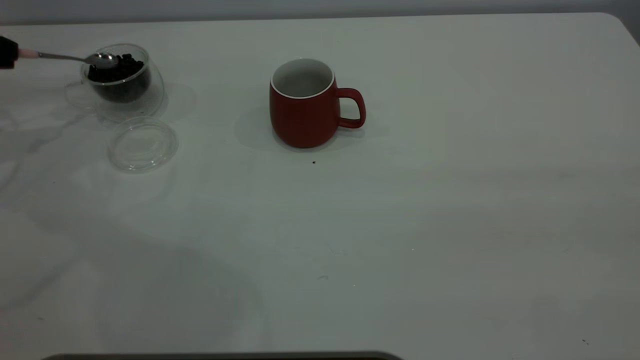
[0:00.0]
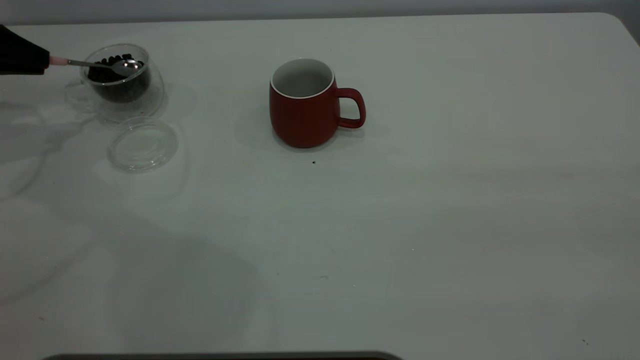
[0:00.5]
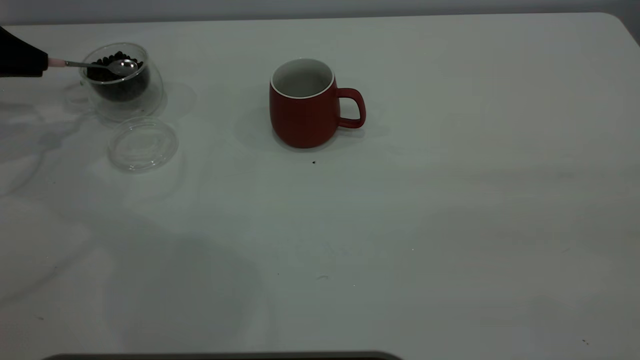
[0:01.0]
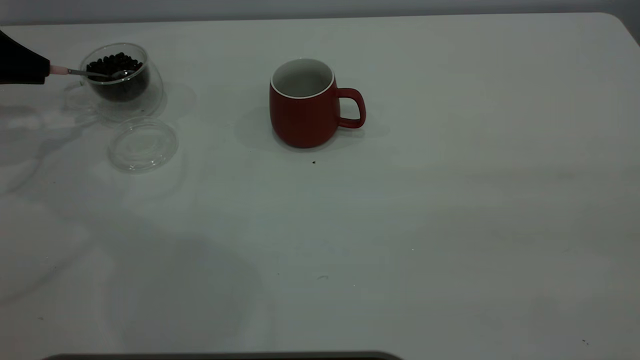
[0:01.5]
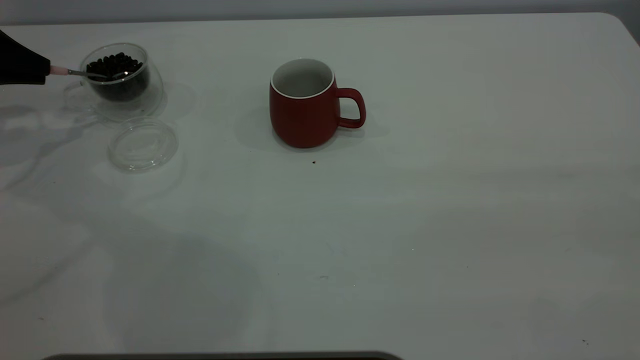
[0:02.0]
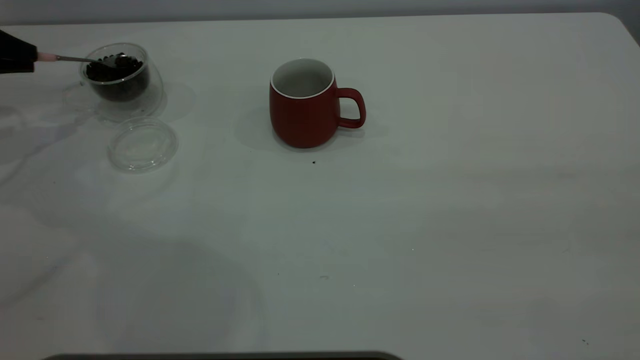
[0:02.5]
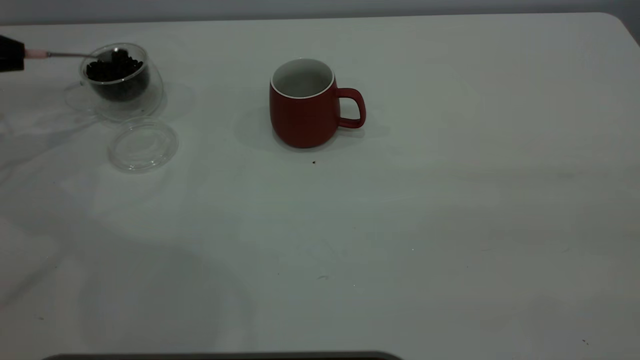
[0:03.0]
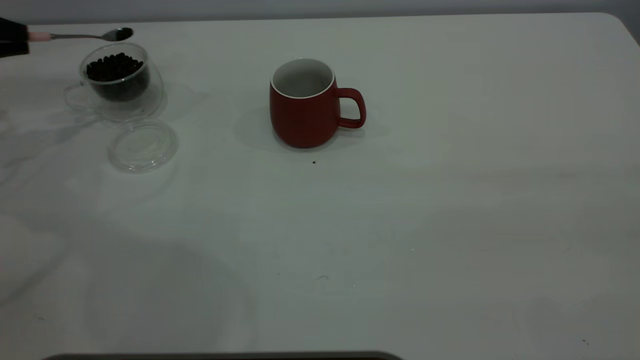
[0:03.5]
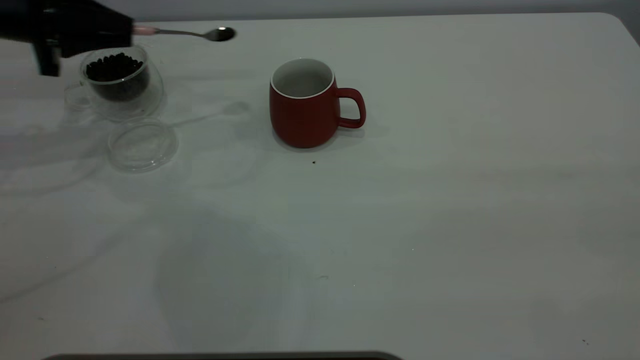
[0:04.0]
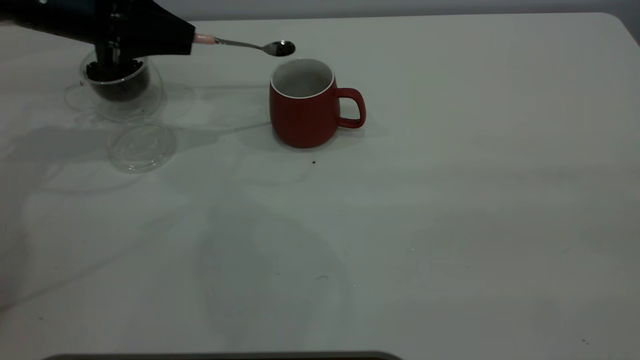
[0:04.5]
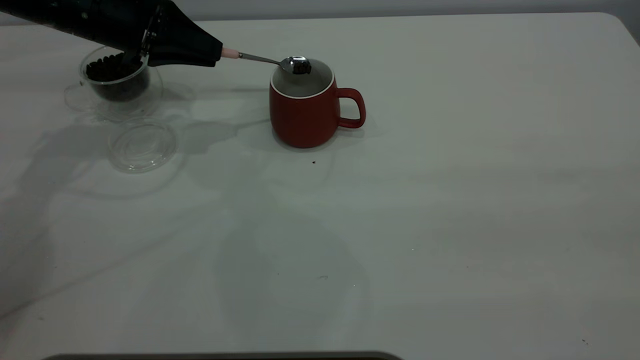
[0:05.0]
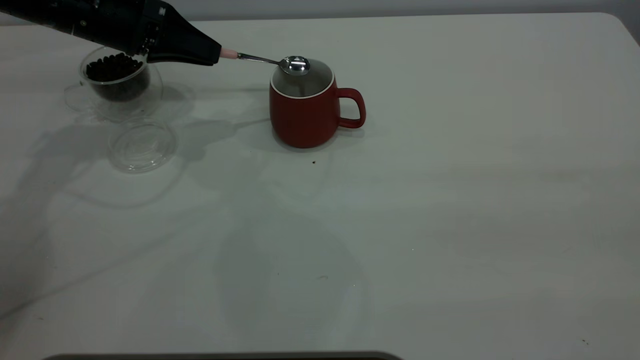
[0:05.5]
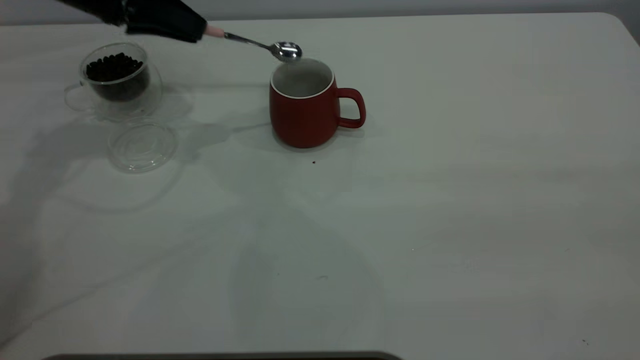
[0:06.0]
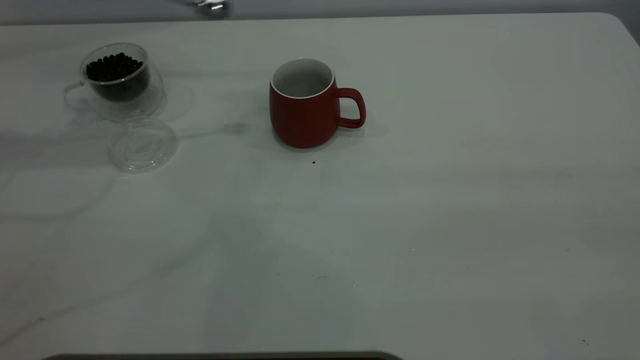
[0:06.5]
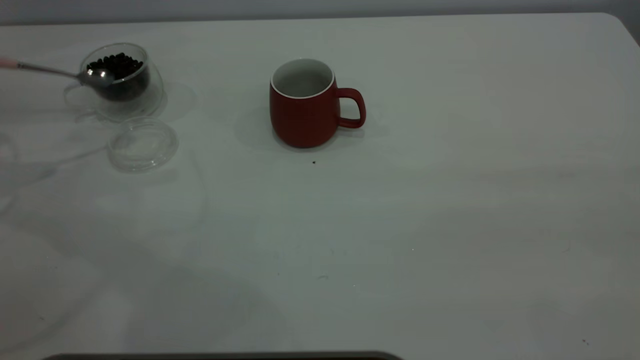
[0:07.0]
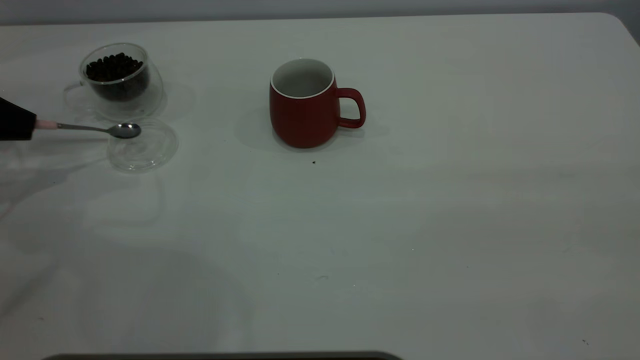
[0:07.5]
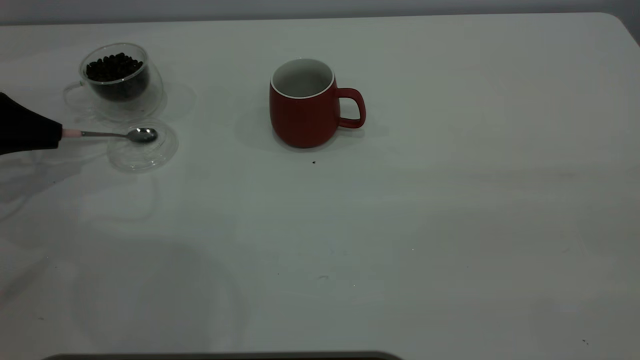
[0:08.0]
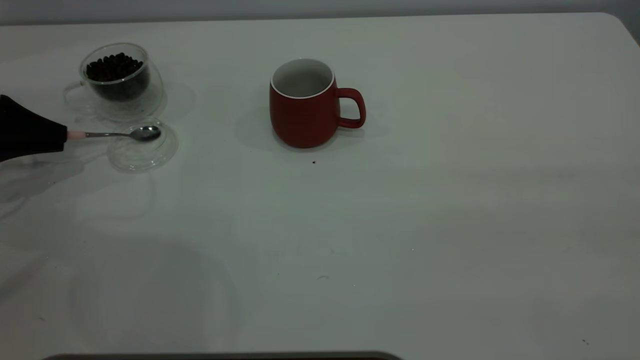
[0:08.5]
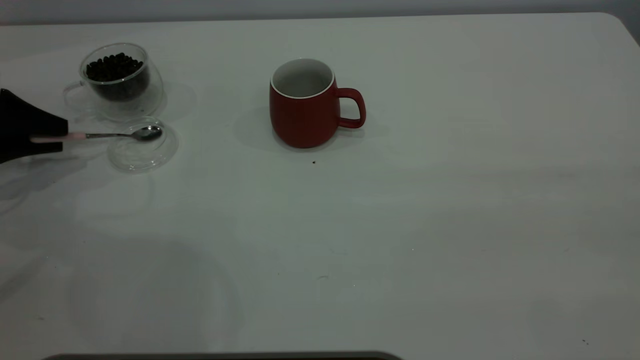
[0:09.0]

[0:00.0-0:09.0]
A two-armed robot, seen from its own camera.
Task of the whole recording: the right gripper place the red cup in the center of the table, the left gripper take the pink spoon from the cup lid and scoop out the coffee beans from the coffee cup and put them into the red cup, the left gripper put the spoon back into the cup lid.
Step, 0:00.0 to 0:06.0: Scoop a spoonful of beans into the cup.
0:00.0 to 0:02.0: The grippers stay close to where they were, moving slightly.
0:02.0 to 0:04.5: The left gripper goes approximately 15 cm to the right.
0:04.5 to 0:07.0: The left gripper travels to the left and backward by roughly 20 cm.
0:07.0 to 0:09.0: The left gripper moves downward, approximately 10 cm, and opens its fingers.

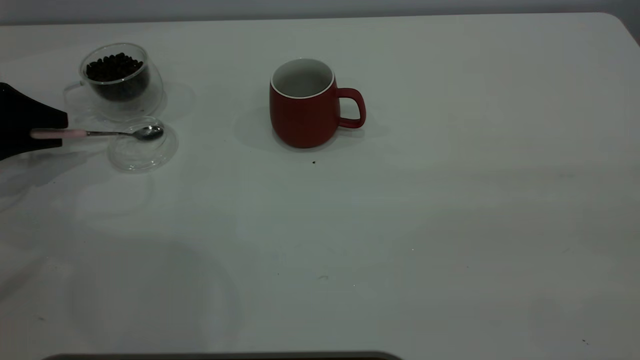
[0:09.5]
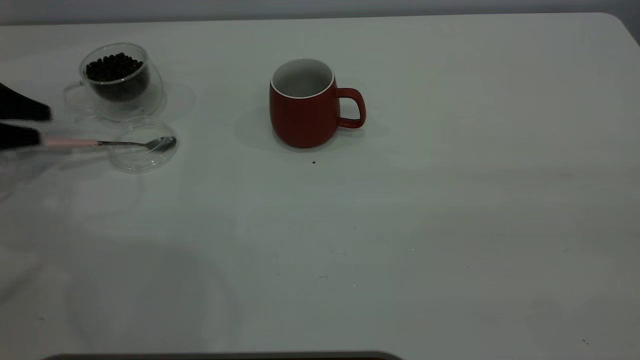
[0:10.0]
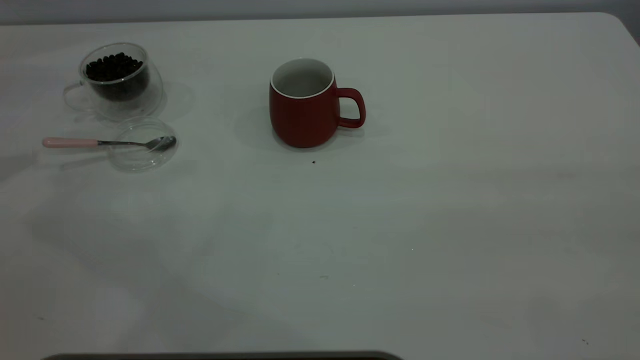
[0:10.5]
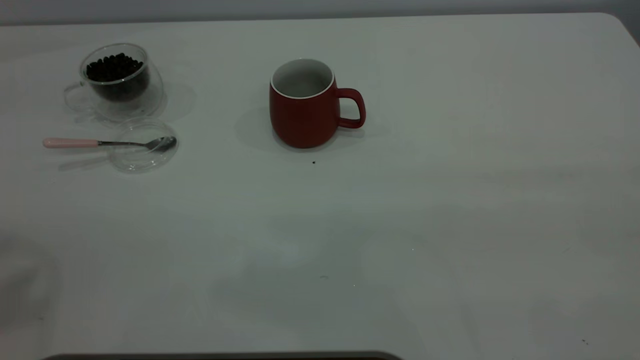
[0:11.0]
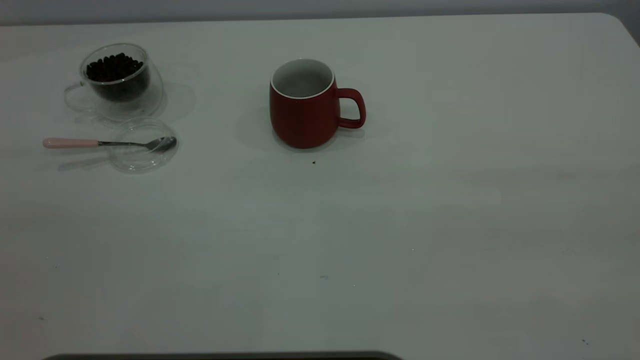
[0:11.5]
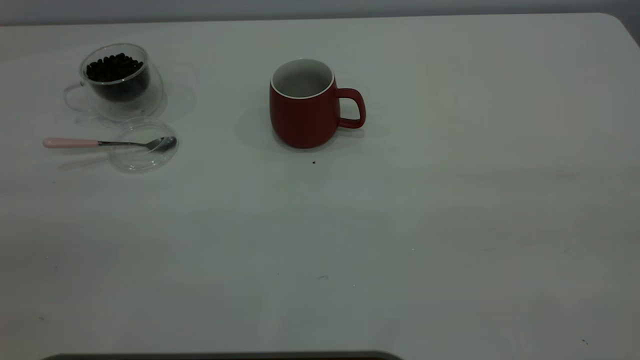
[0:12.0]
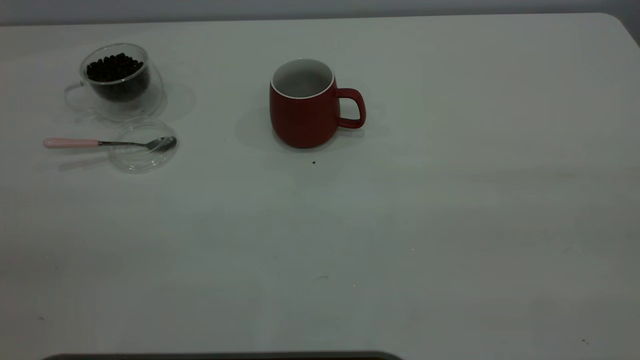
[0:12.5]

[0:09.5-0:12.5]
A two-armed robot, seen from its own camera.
Task of the whole recording: the right gripper place the red cup in the center of the table, the left gripper take the pink spoon from the cup lid and scoop out the coffee beans from the coffee cup and put them into the red cup, the left gripper put the spoon back into the cup lid.
0:09.5 to 0:11.0: The left gripper heads upward and backward, covering about 40 cm.

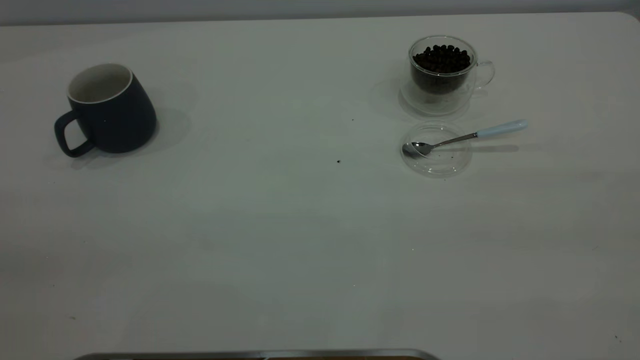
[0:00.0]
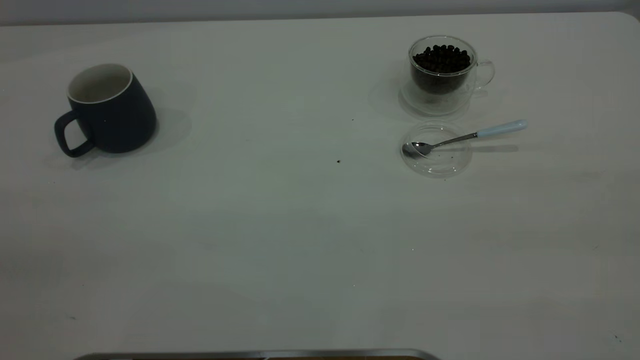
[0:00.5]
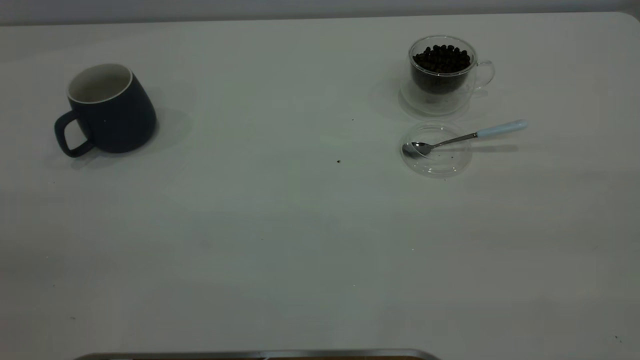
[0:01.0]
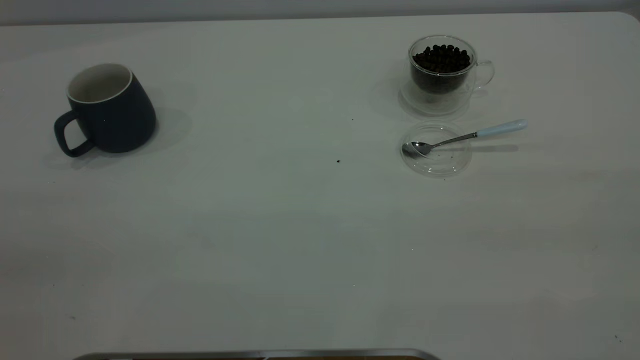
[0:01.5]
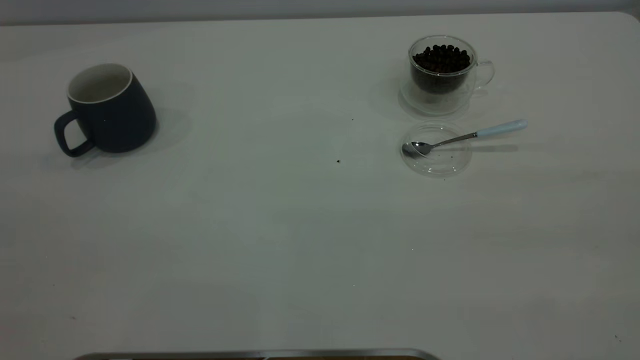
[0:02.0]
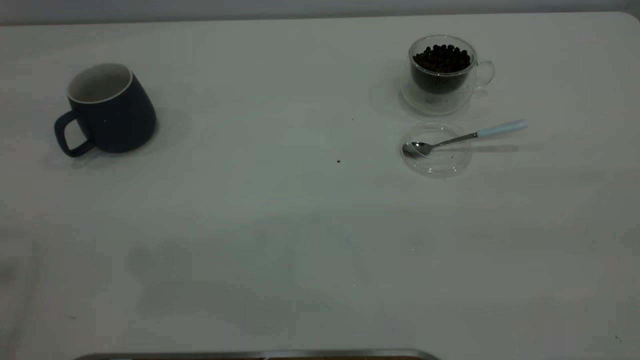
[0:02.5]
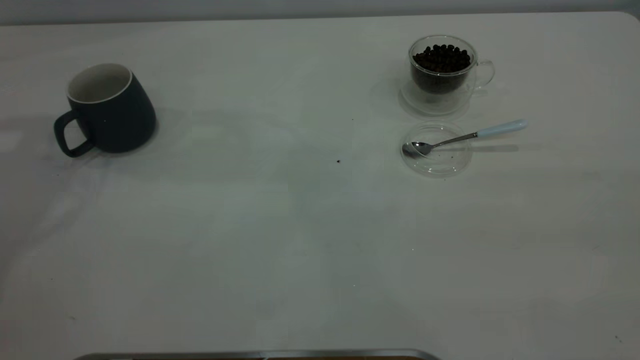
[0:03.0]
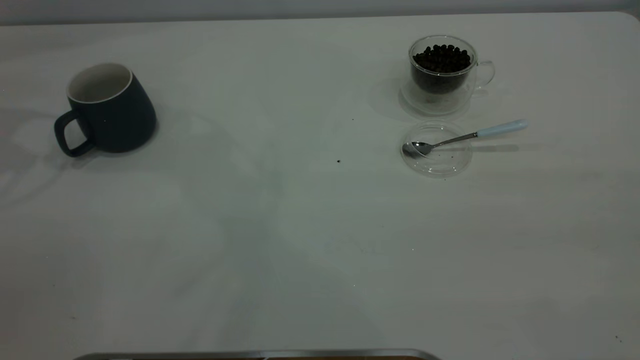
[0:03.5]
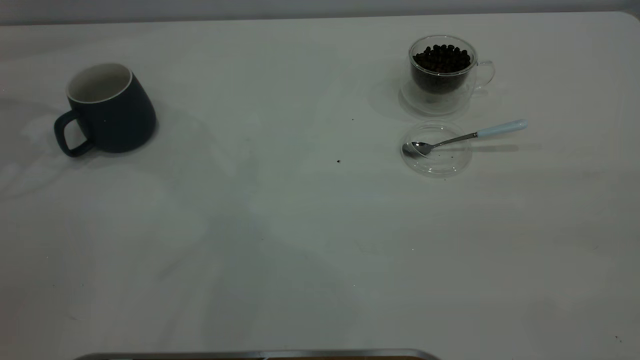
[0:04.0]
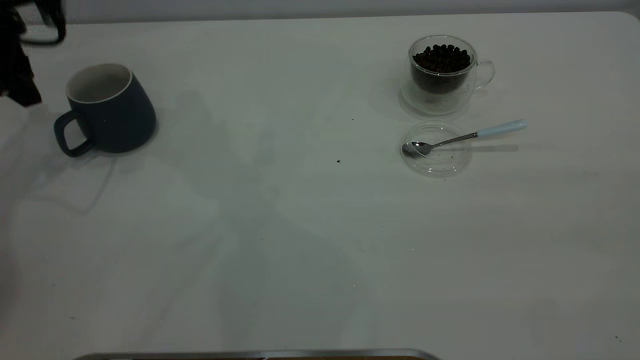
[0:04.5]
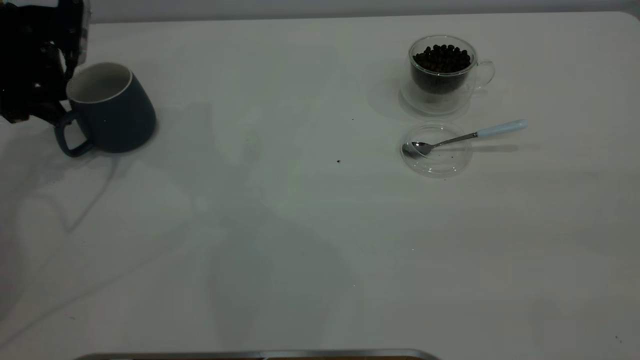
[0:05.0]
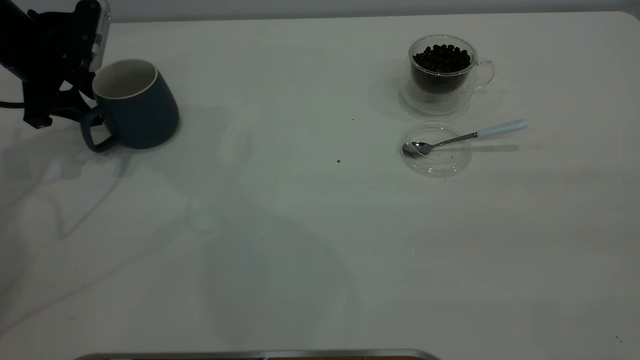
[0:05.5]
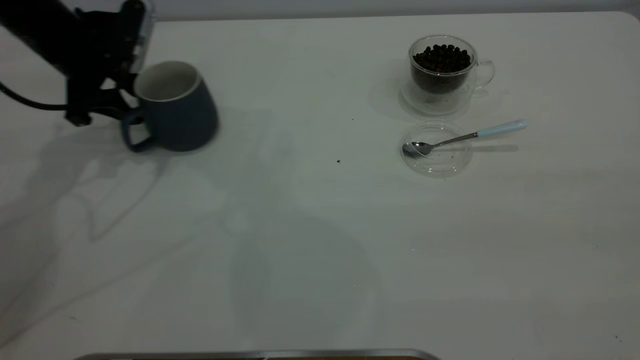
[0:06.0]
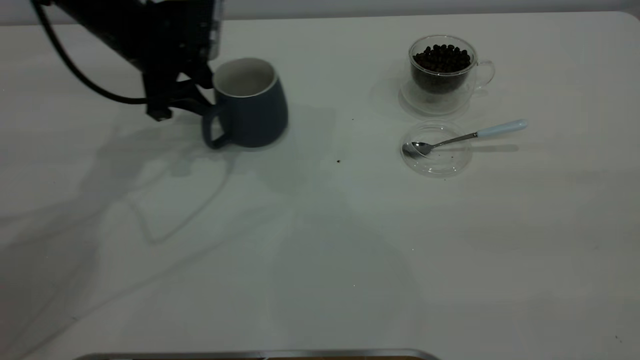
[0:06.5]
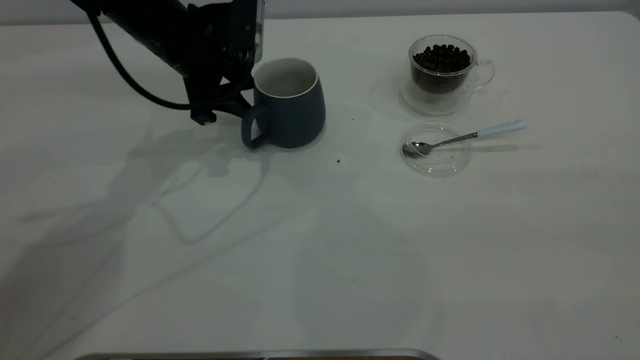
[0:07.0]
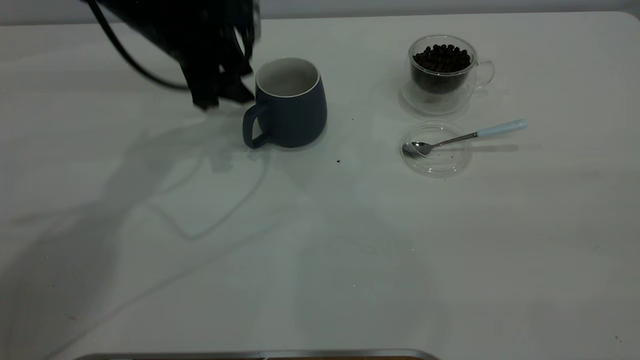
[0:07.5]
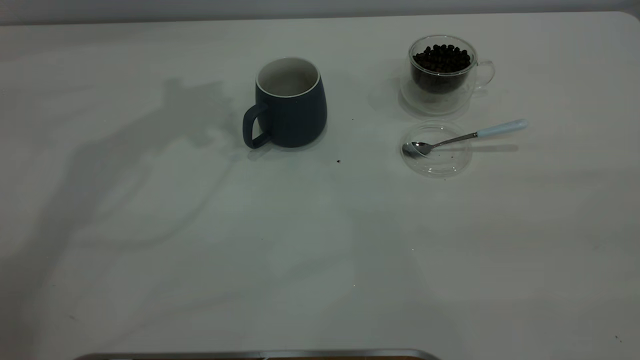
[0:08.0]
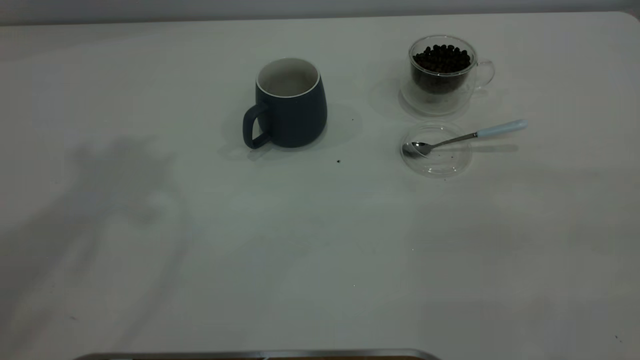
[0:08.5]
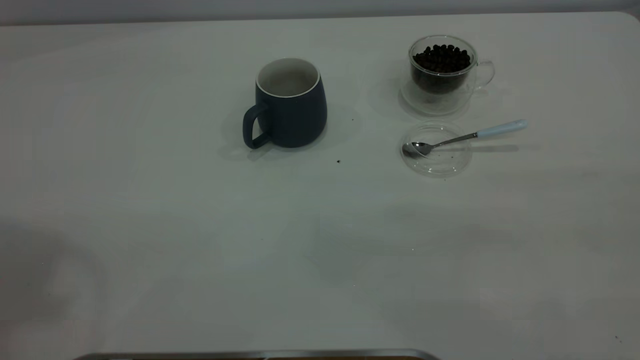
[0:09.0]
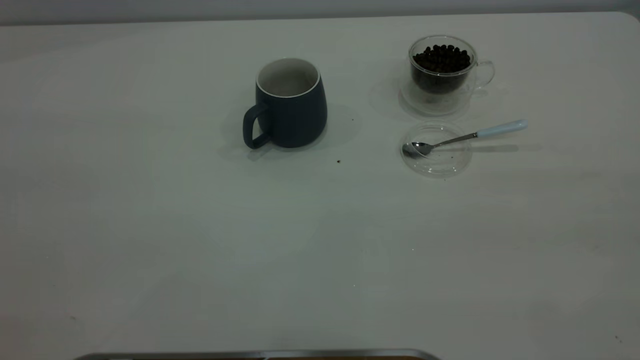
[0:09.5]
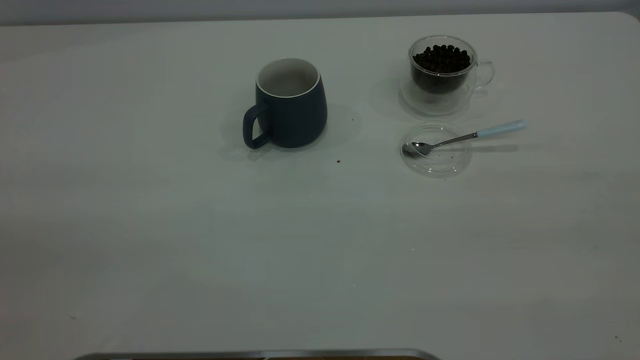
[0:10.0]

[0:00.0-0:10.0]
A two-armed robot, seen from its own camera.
Task of the whole recording: the left gripper place the grey cup in the center of the table, the right gripper take the blue spoon from the cup lid and scoop out the coffee beans from the coffee cup and put them into the grey cup, the right gripper put the spoon back into the cup lid.
Step, 0:00.0 to 0:07.5: Move the cup to the center of view.
0:04.0 to 0:06.0: The left gripper shifts some 15 cm to the right and downward.
0:06.0 to 0:08.0: The left gripper travels upward by roughly 20 cm.
